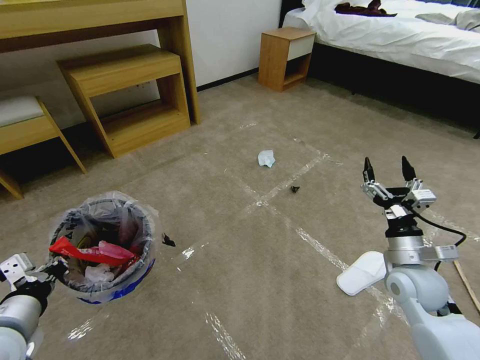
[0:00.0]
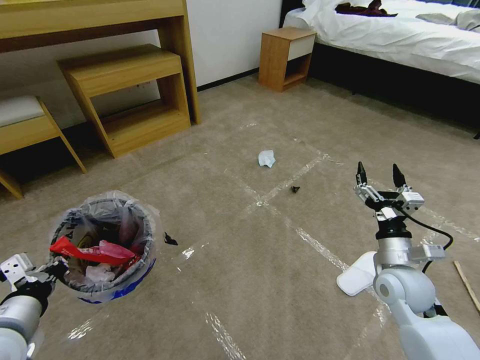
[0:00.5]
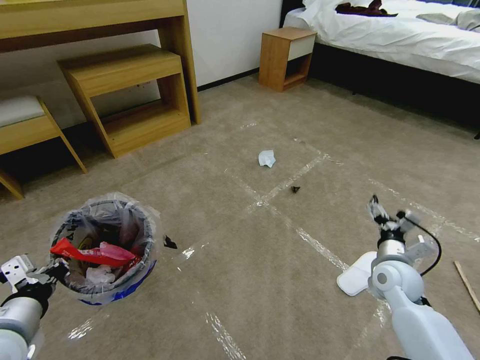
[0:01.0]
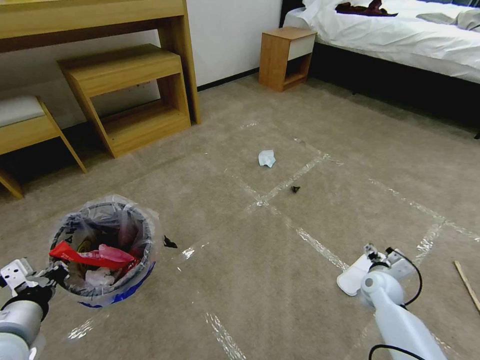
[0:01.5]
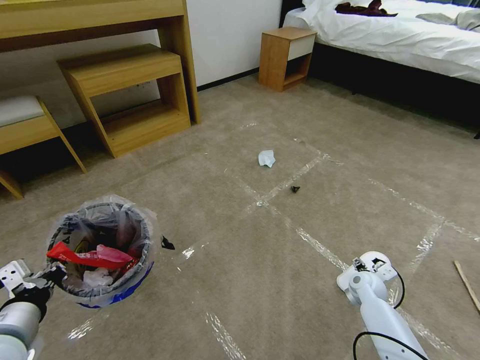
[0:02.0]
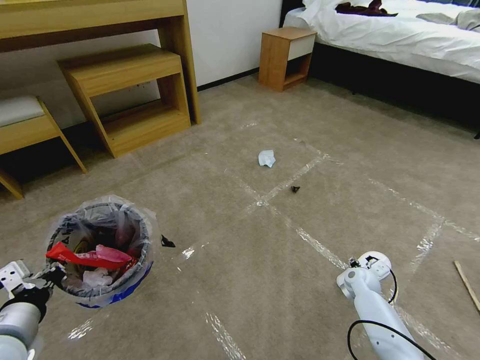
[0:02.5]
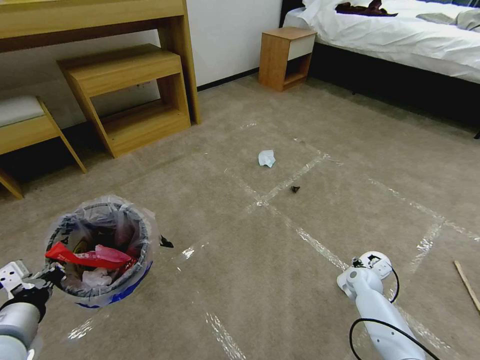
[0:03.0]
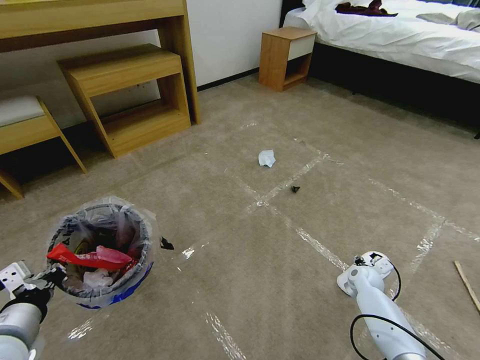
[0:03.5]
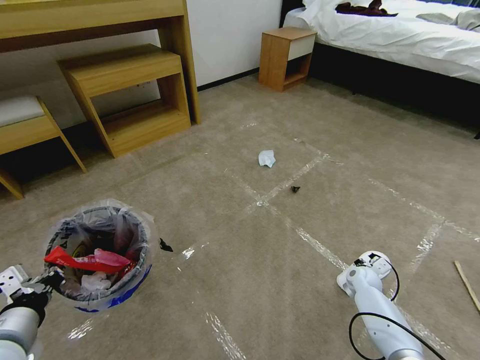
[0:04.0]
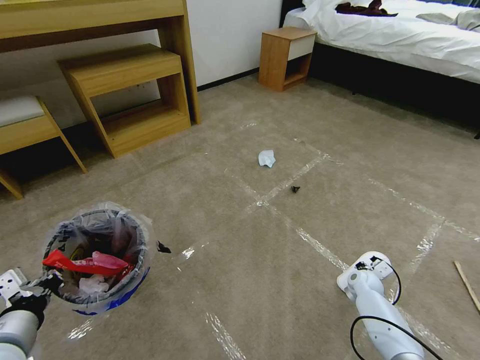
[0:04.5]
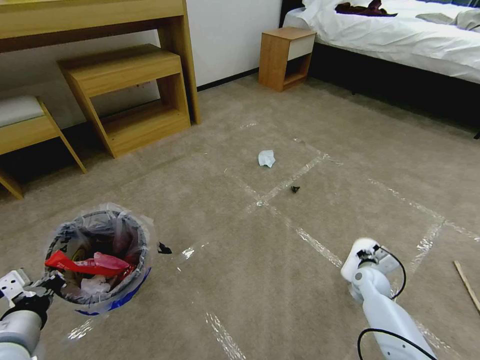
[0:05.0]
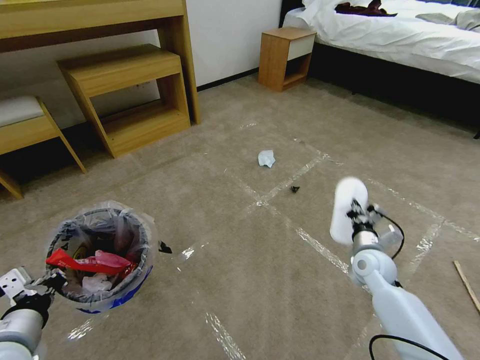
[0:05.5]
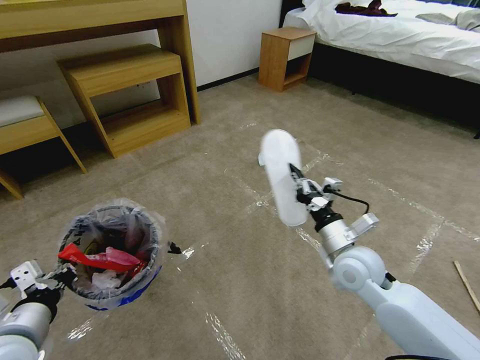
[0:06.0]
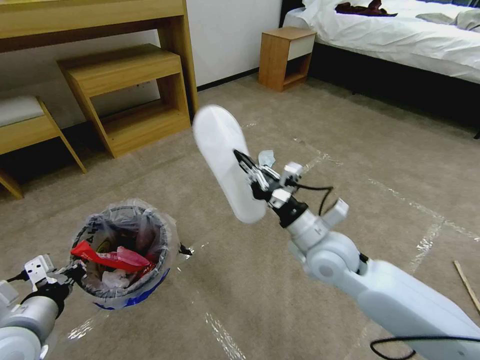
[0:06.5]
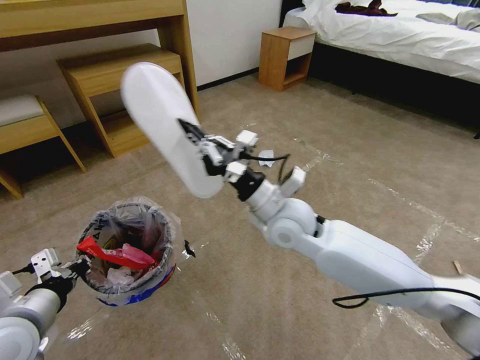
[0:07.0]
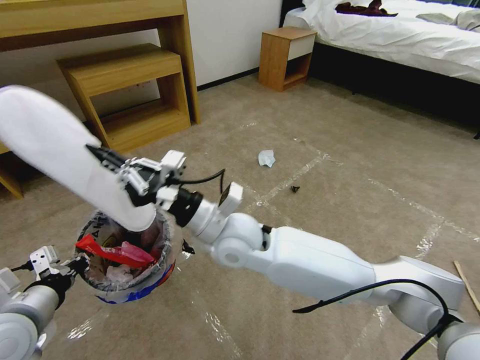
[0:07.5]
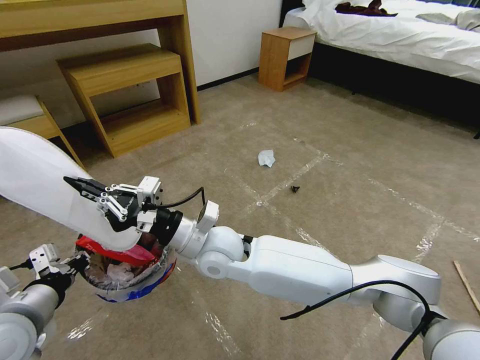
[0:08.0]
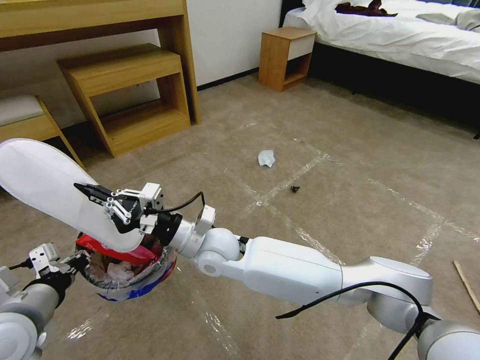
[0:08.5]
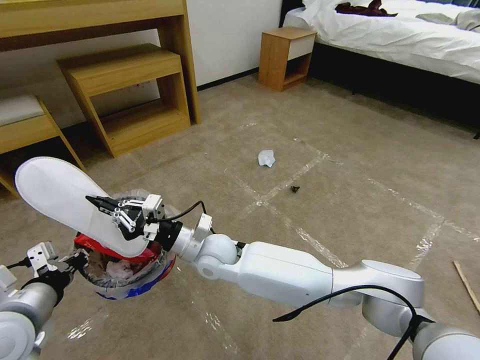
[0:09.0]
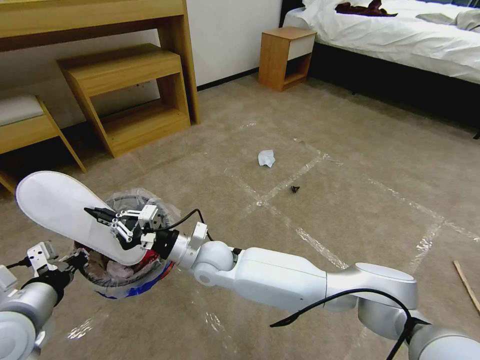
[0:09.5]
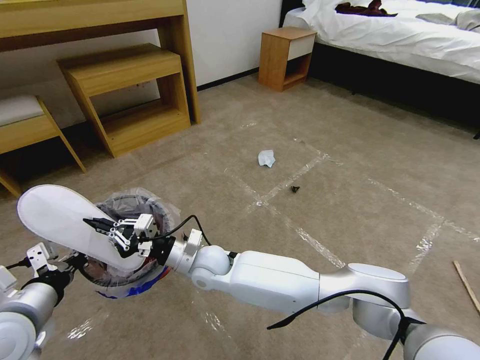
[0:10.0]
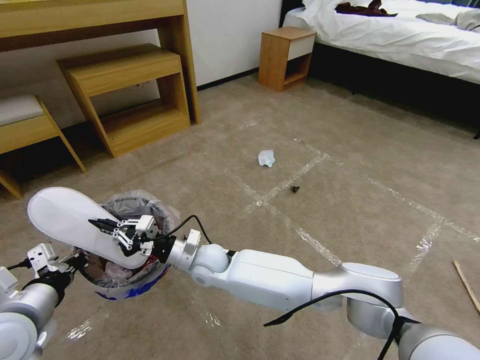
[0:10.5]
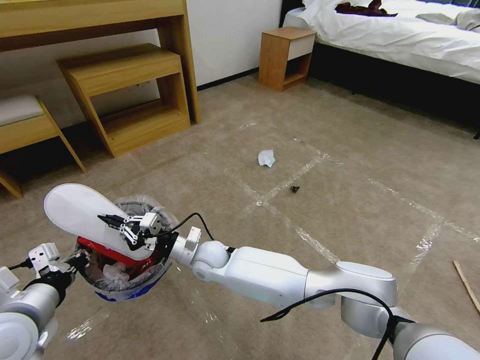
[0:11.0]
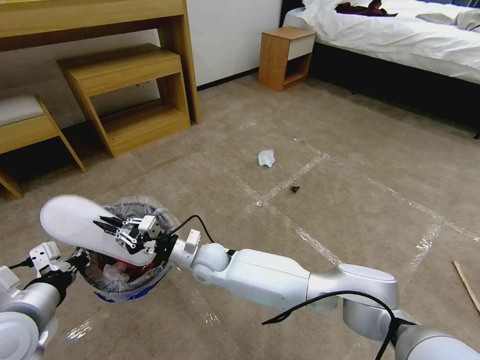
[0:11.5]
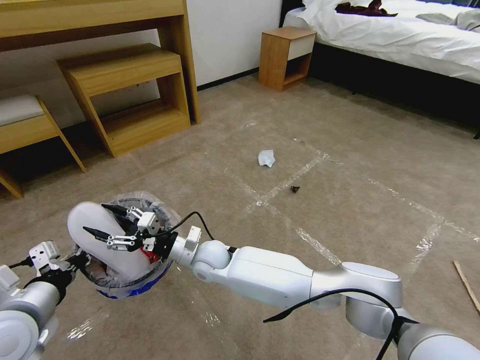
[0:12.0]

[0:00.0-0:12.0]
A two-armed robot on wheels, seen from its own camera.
Task of the whole recording: Pick up the trash bin and place the garbage on the floor into it.
0:00.0 to 0:02.0: The right gripper travels downward by roughly 20 cm.
0:02.0 to 0:04.0: The right gripper closes.
0:04.0 to 0:06.0: The right gripper shifts some 30 cm upward and to the left.
0:06.0 to 0:08.0: The right gripper shifts roughly 30 cm to the left.
0:08.0 to 0:10.0: The right gripper shifts about 10 cm downward.
0:10.0 to 0:12.0: The right gripper opens up.

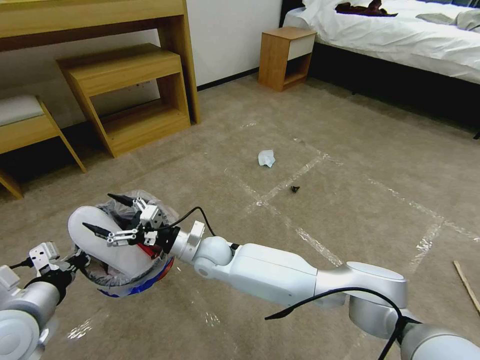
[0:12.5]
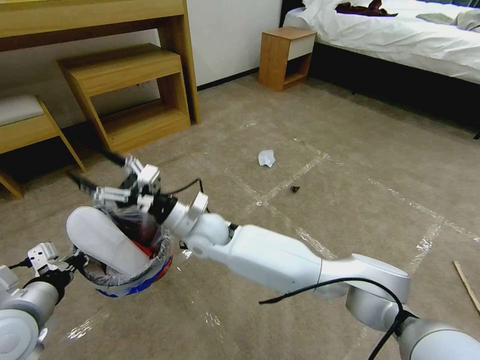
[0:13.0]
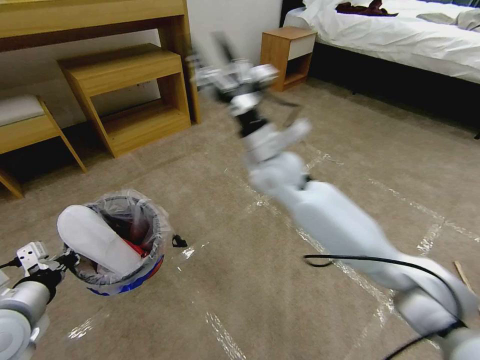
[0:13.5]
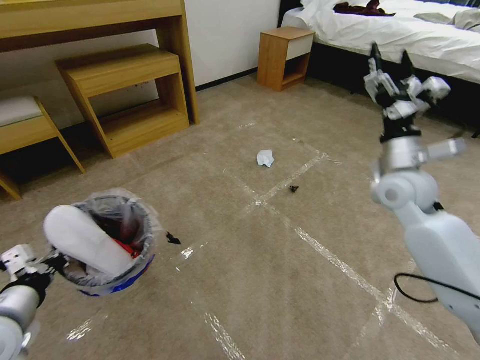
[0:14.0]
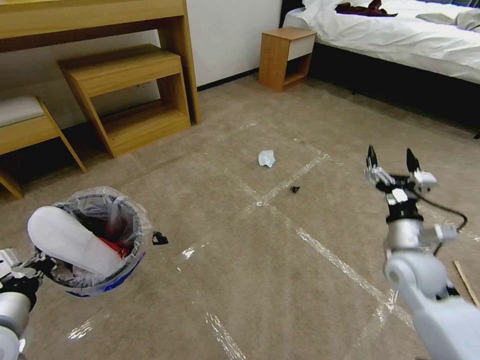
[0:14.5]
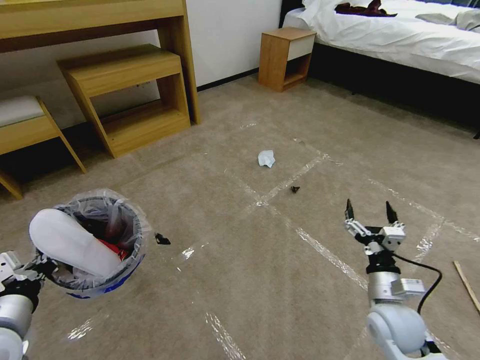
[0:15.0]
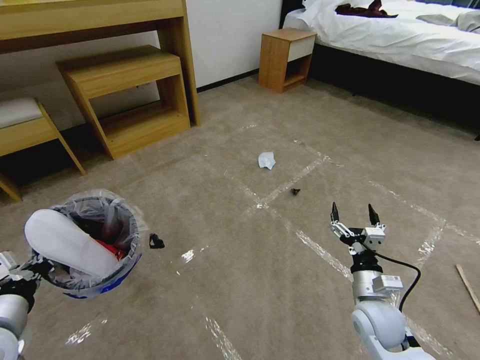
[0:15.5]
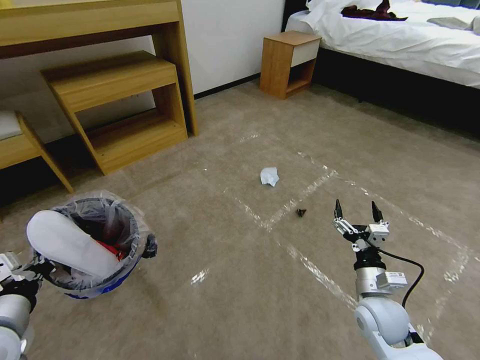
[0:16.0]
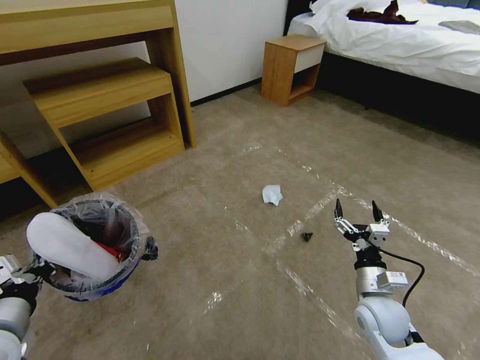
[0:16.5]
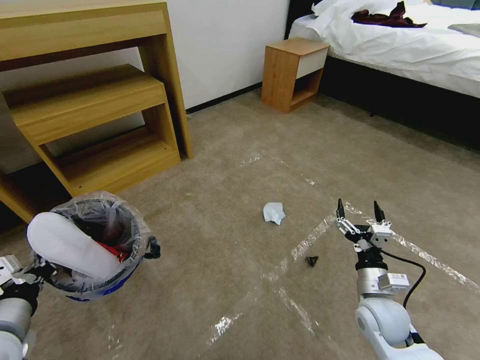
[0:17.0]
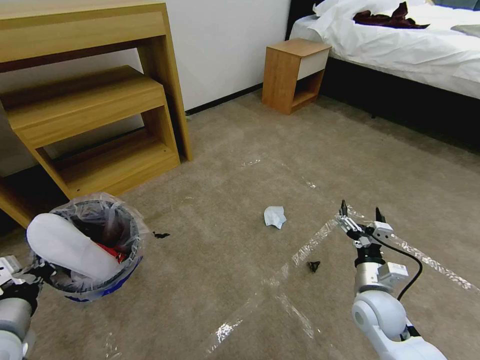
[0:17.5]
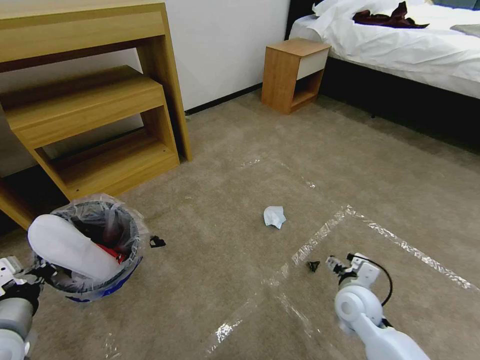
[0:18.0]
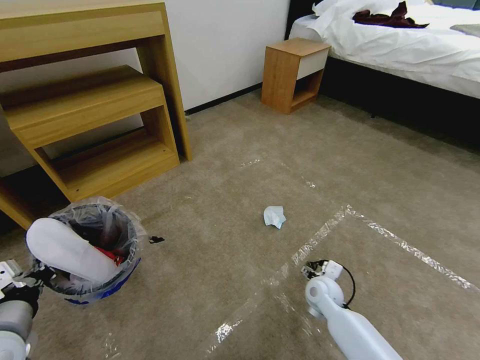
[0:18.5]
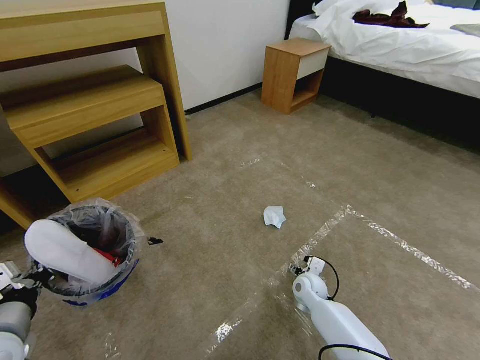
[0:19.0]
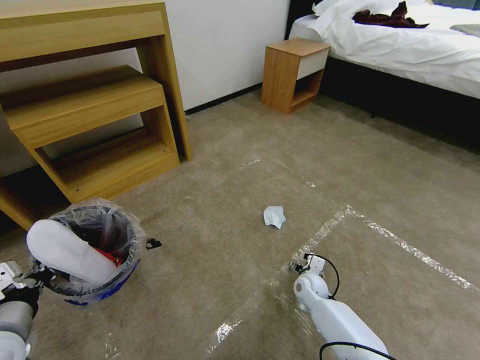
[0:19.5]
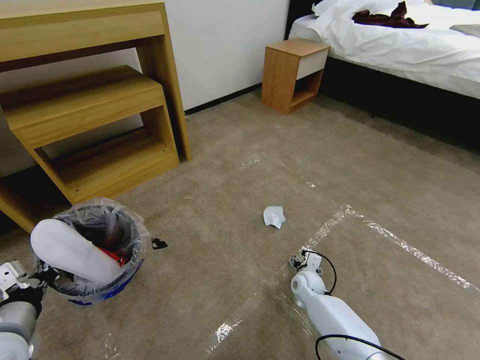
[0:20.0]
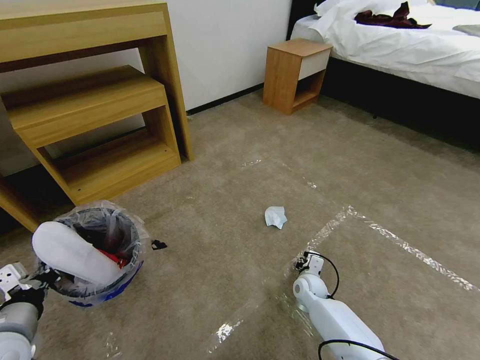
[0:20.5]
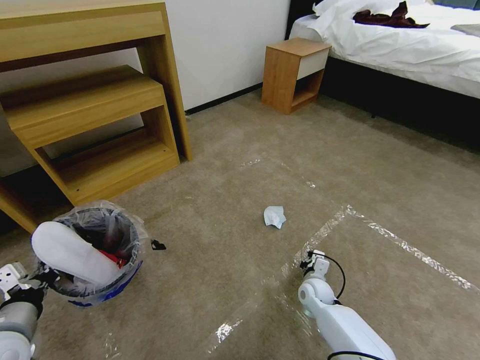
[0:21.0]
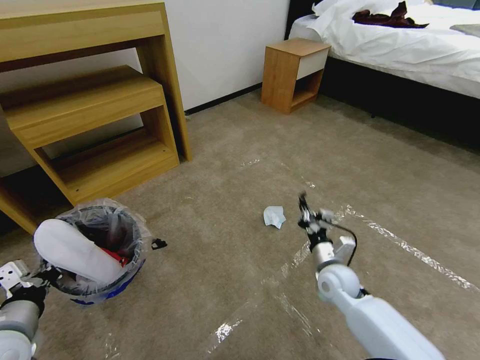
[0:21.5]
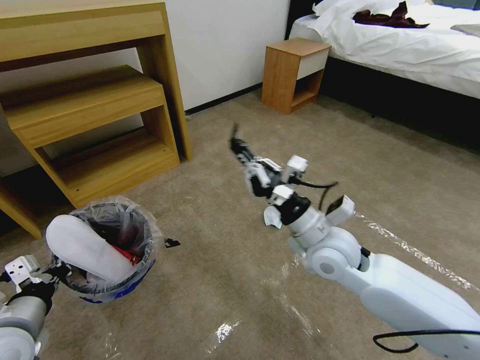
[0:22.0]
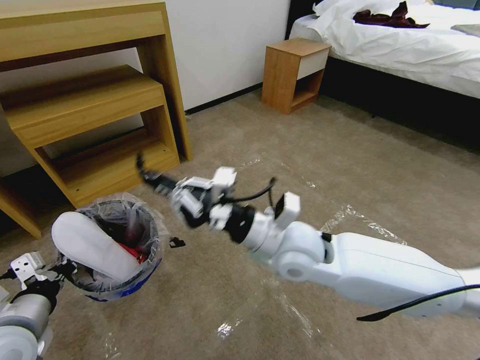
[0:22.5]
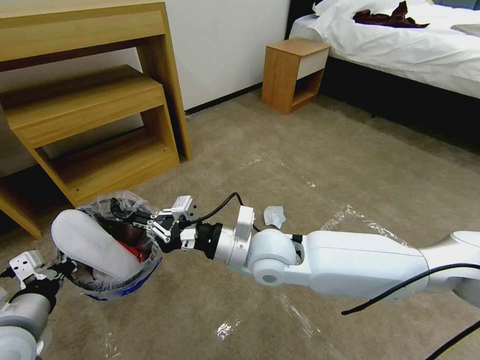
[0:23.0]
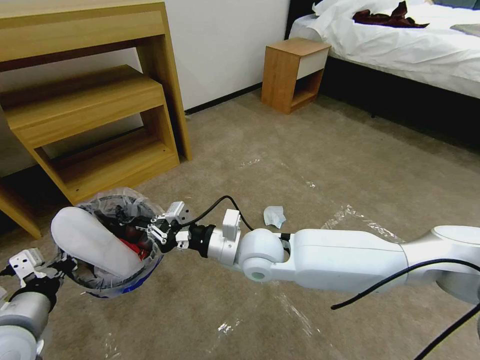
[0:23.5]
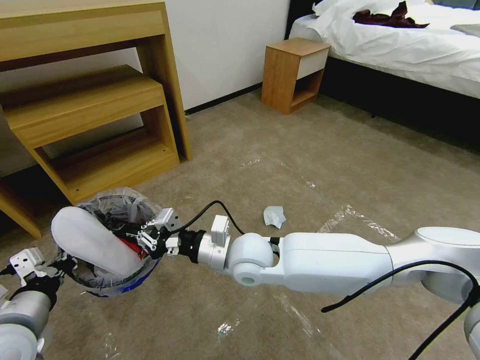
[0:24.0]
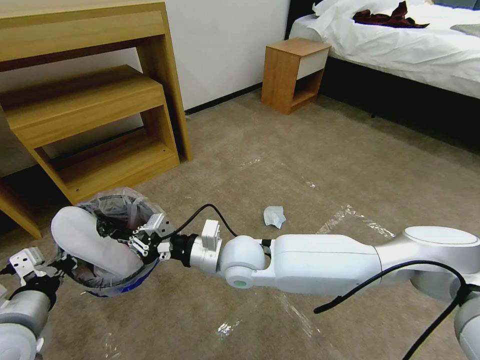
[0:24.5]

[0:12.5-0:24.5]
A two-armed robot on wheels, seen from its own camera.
Task of the whole recording: Pick up the trash bin and place the garbage on the floor into it.
0:12.5 to 0:14.5: The right gripper travels to the right by some 40 cm.
0:14.5 to 0:16.5: The right gripper moves downward, backward and to the left, about 15 cm.
0:16.5 to 0:18.5: The right gripper travels downward, forward and to the left by some 15 cm.
0:18.5 to 0:20.5: The right gripper heads downward, covering about 5 cm, and closes its fingers.
0:20.5 to 0:22.5: The right gripper is displaced upward by some 35 cm, and closes its fingers.
0:22.5 to 0:24.5: The right gripper moves to the left and downward, approximately 10 cm.

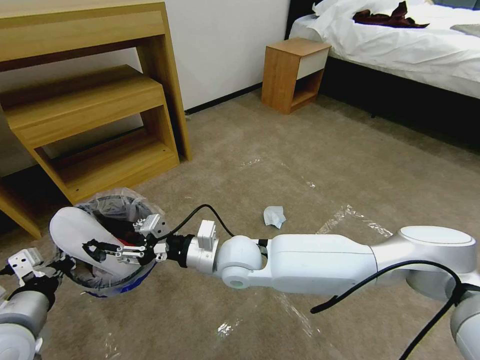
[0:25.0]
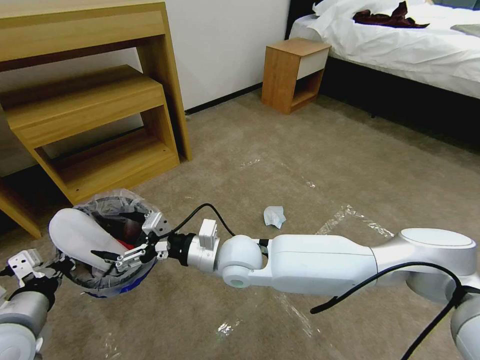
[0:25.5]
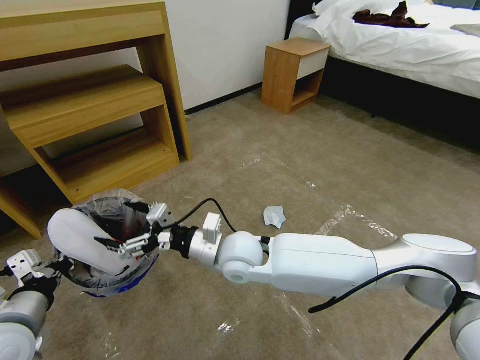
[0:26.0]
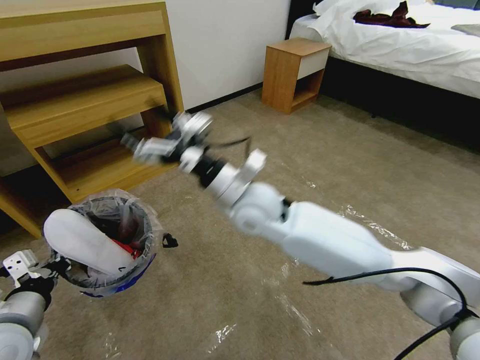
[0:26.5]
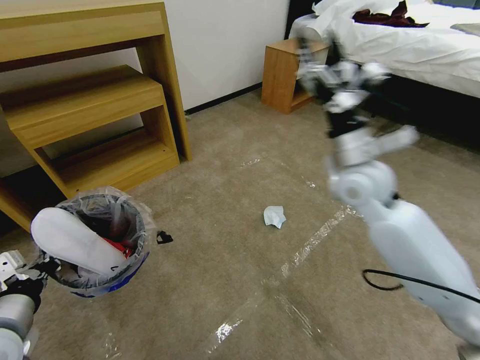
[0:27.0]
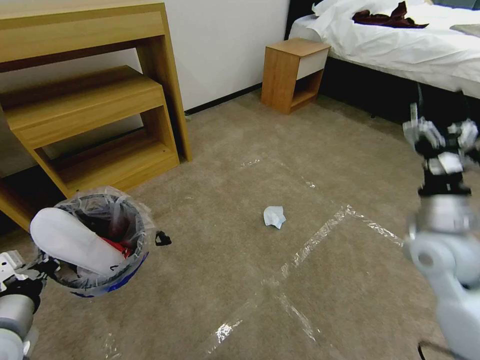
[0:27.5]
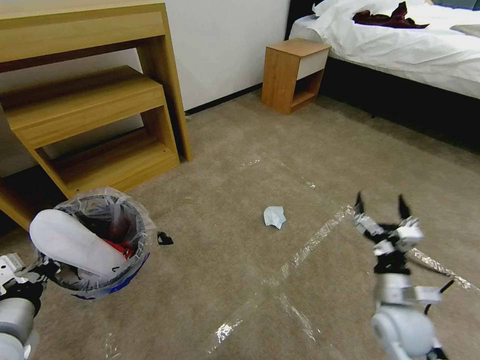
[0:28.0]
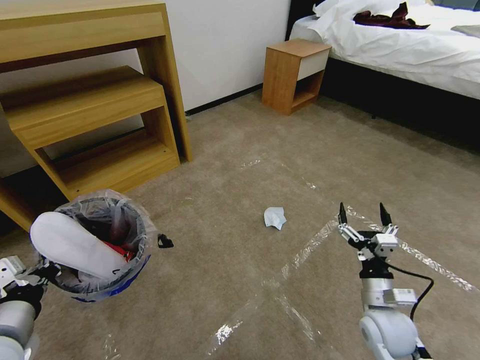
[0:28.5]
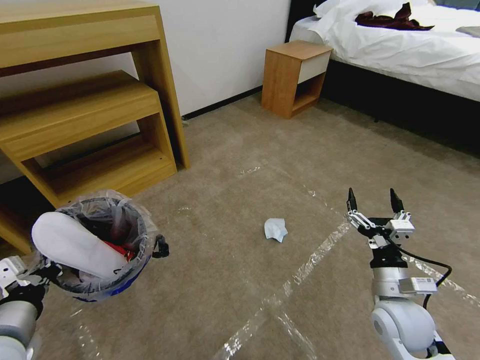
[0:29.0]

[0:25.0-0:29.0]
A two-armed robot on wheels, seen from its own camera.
Task of the whole recording: Pick up the trash bin and place the garbage on the floor into it.
0:25.0 to 0:27.0: The right gripper heads to the right and upward, covering roughly 30 cm, and opens its fingers.
0:27.0 to 0:29.0: The right gripper moves downward and backward, about 25 cm.
